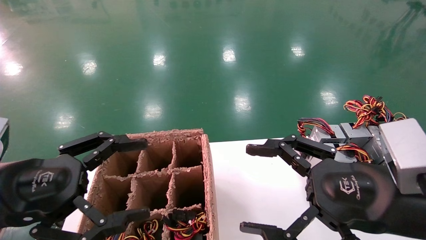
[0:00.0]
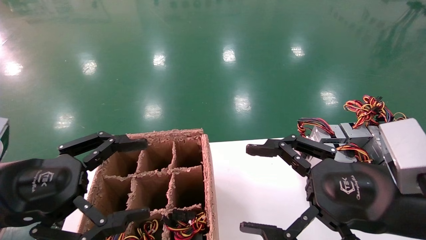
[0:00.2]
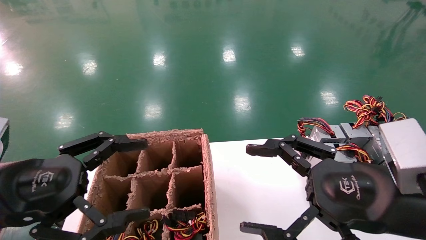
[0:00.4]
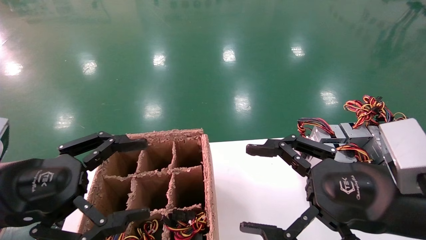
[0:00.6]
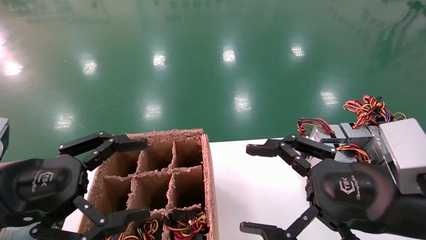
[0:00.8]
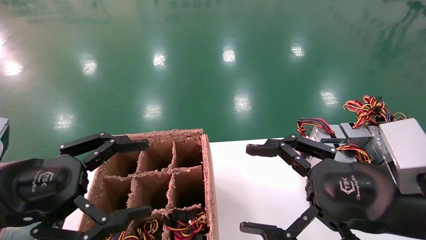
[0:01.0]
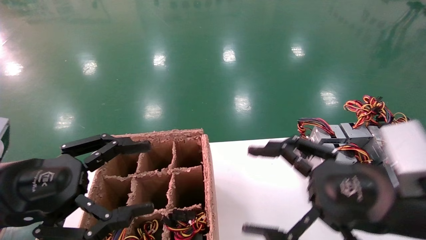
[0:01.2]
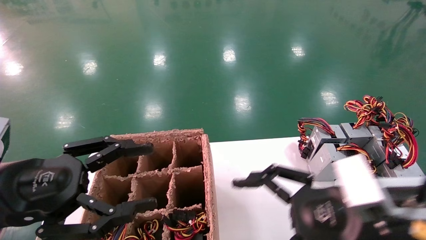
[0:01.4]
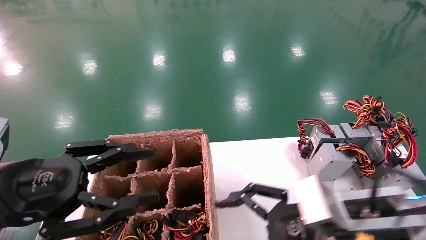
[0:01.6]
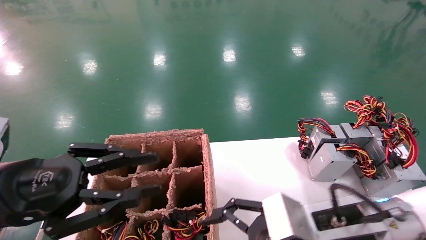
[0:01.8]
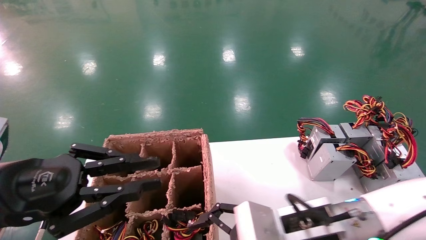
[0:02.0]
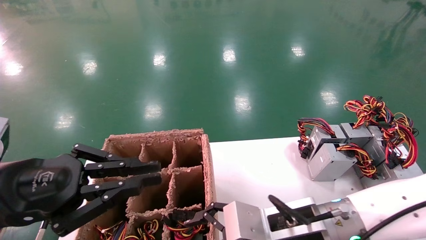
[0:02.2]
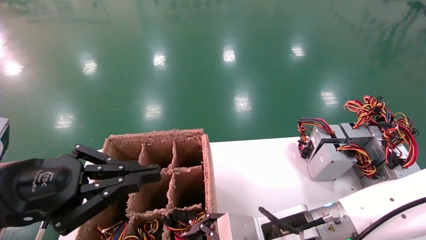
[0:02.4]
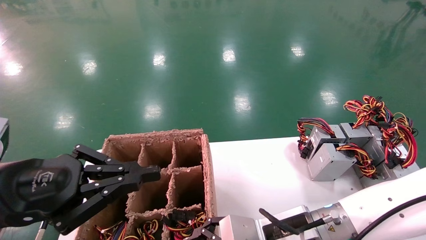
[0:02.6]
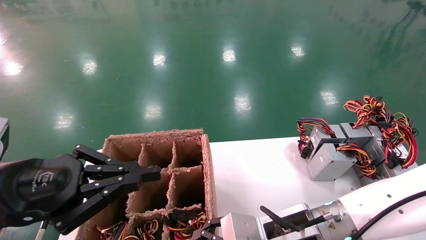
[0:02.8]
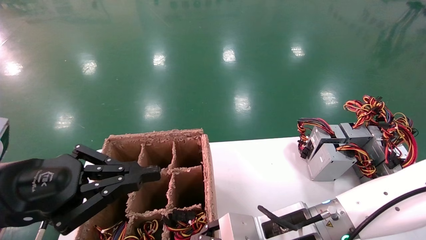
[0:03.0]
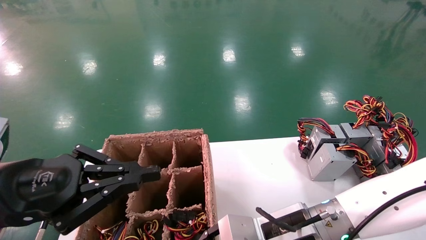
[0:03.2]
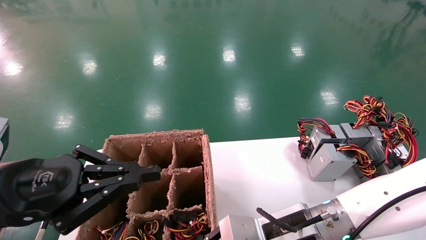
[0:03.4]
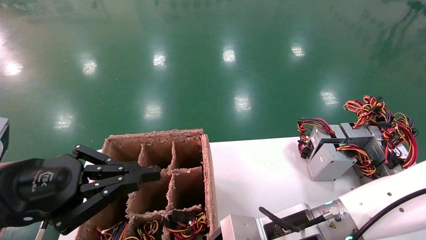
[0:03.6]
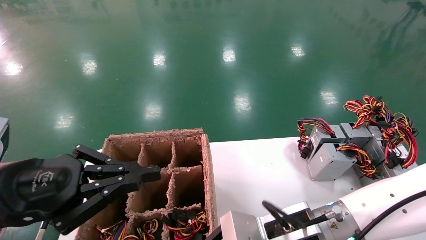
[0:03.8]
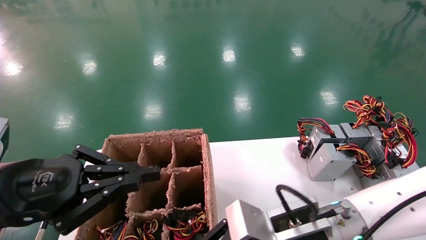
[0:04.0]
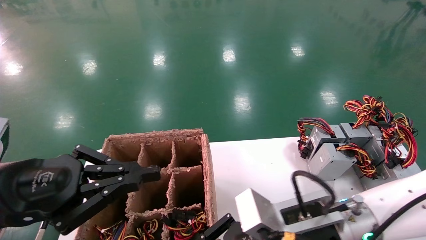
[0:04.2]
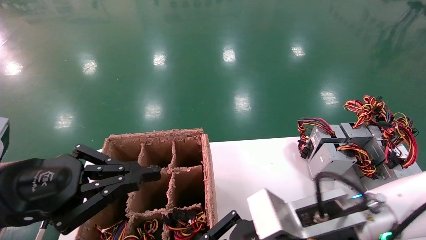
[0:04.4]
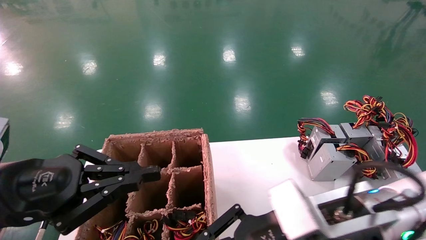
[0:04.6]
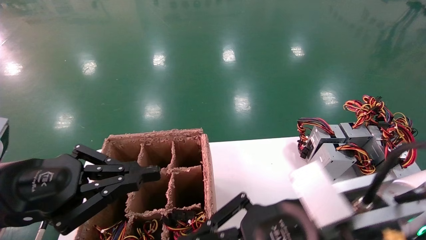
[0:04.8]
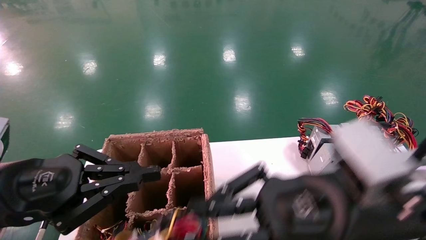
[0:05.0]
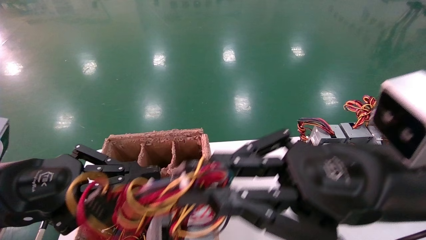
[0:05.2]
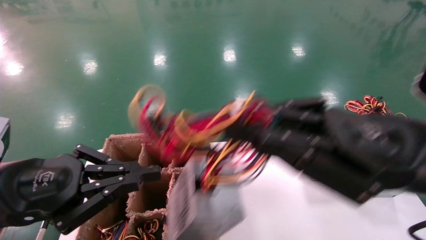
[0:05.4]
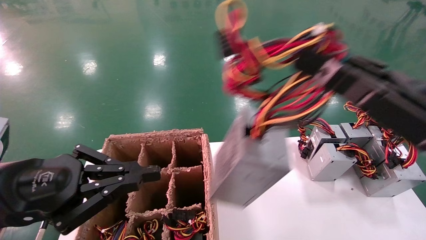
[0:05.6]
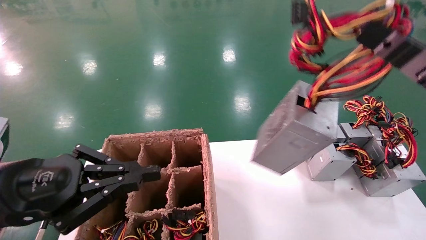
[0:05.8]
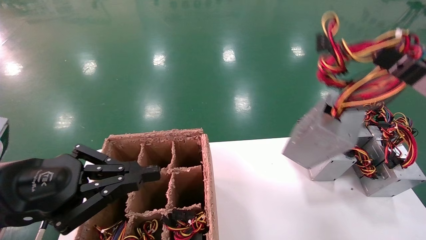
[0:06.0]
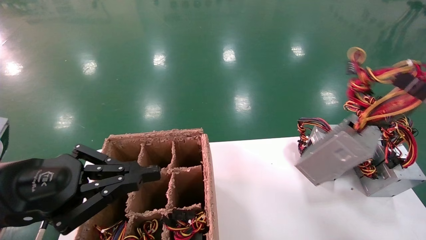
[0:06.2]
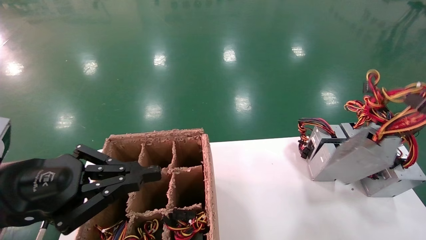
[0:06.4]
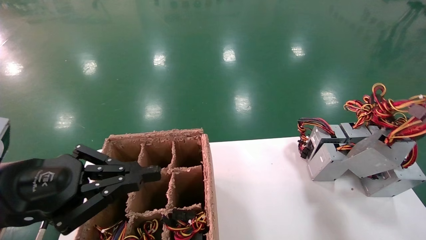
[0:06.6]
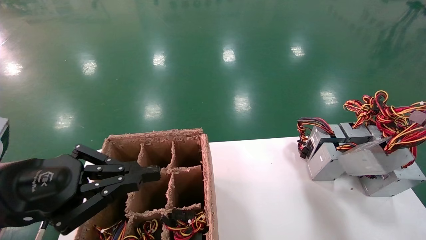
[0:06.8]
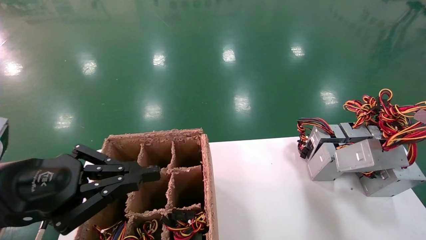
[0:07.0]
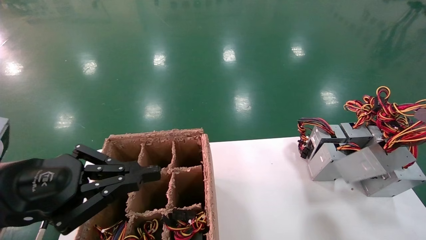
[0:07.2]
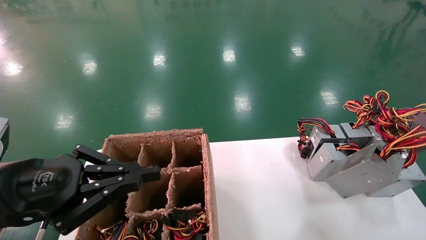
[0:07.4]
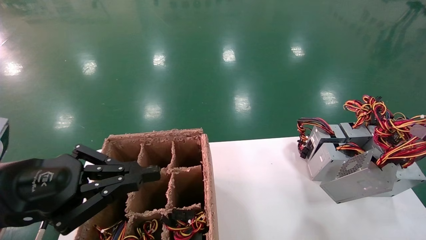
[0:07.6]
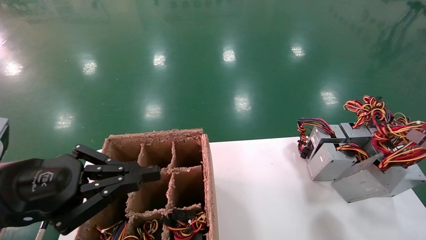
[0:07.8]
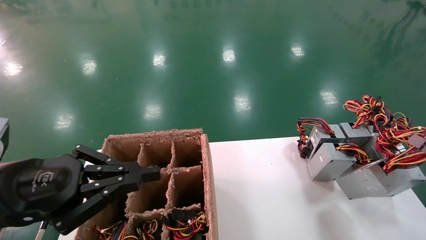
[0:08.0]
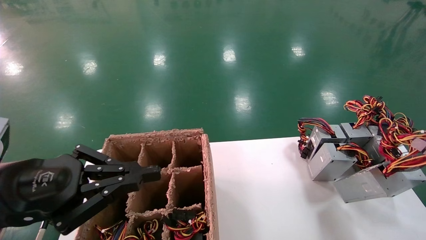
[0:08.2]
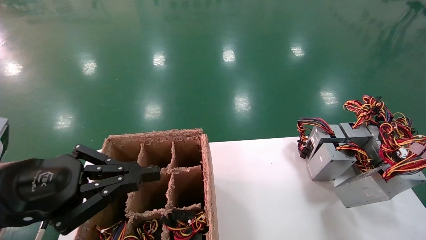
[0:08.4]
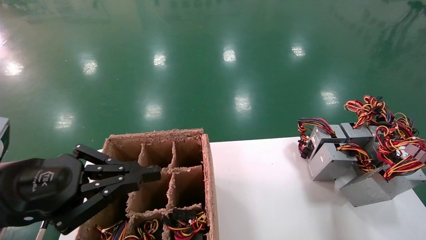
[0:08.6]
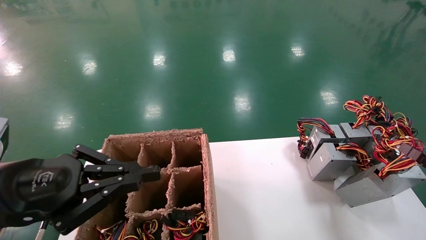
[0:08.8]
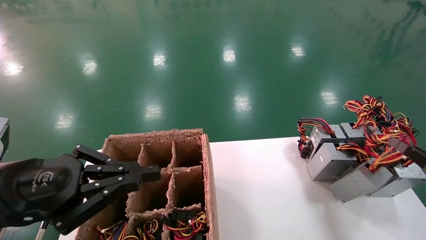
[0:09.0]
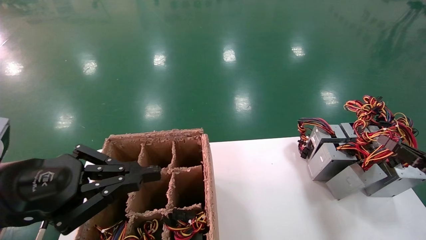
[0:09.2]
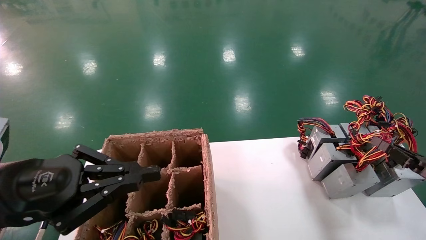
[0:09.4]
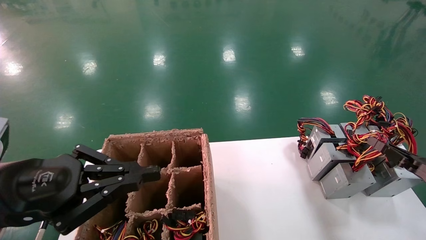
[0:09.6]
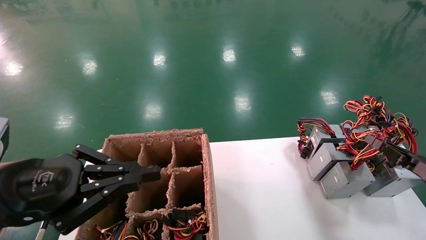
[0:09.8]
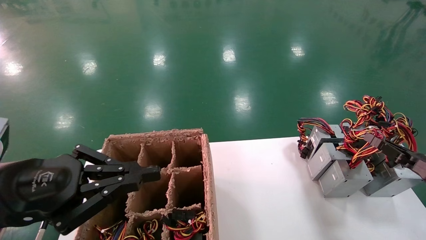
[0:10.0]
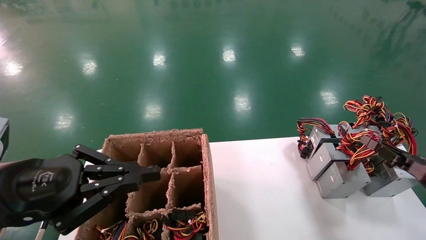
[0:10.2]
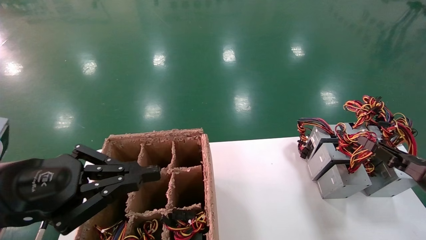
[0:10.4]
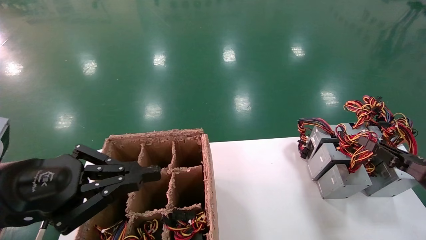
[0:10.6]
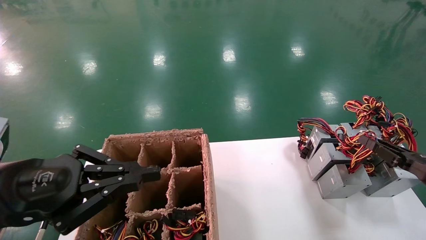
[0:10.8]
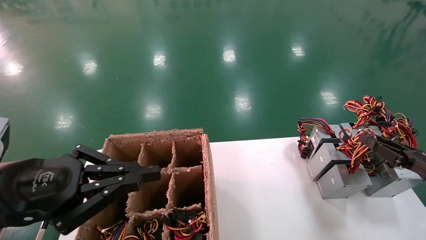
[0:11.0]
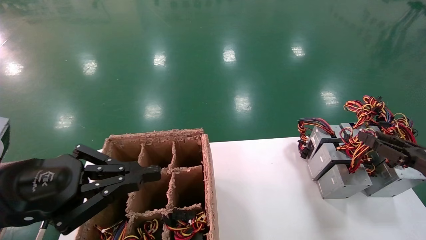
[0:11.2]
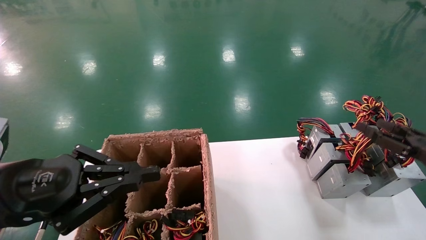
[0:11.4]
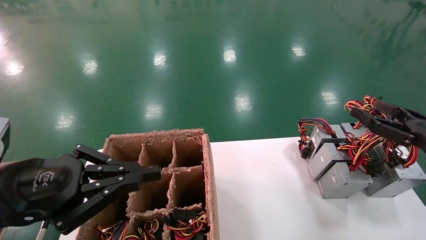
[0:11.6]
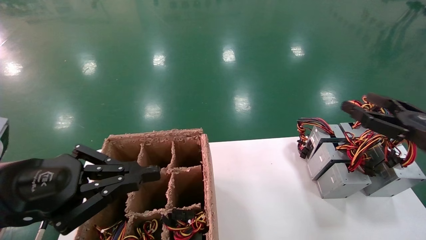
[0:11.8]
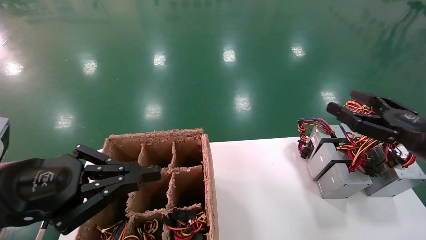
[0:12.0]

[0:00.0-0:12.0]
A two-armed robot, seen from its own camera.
Step, 0:01.6 to 0:03.6: Grab the main unit power supply from the containment box.
Step, 0:03.8 to 0:11.4: Place the main unit power supply in the designated area.
0:00.0 to 0:01.6: The right gripper is displaced downward by some 5 cm, while the left gripper closes up.
0:01.6 to 0:03.0: The right gripper shifts roughly 5 cm to the left; the left gripper closes up.
0:03.0 to 0:04.4: The right gripper ends up some 5 cm from where it was, and closes.
0:04.4 to 0:06.0: The right gripper travels to the right by some 25 cm.
0:06.0 to 0:07.6: The right gripper heads to the right and downward, covering some 15 cm.
0:07.6 to 0:09.0: The right gripper moves forward, about 5 cm.
0:09.0 to 0:10.4: The grippers stay close to where they were, moving slightly.
0:10.4 to 0:12.0: The right gripper moves upward and to the left, about 15 cm, and opens up.

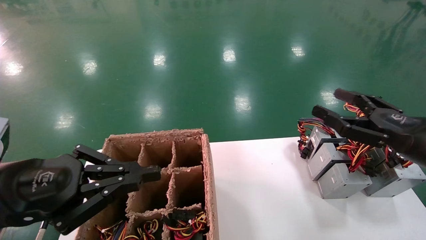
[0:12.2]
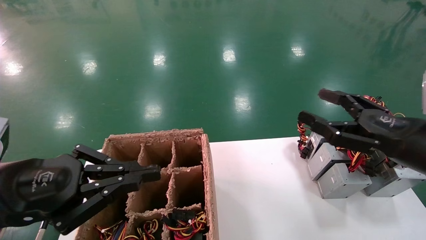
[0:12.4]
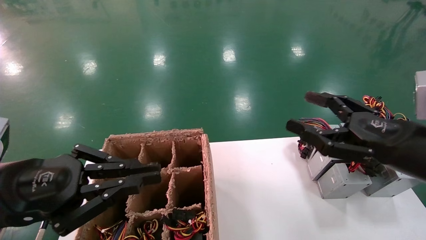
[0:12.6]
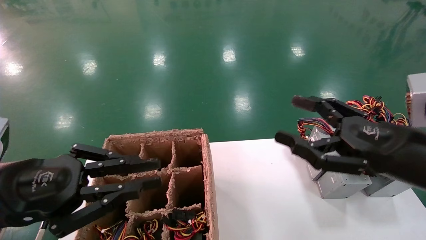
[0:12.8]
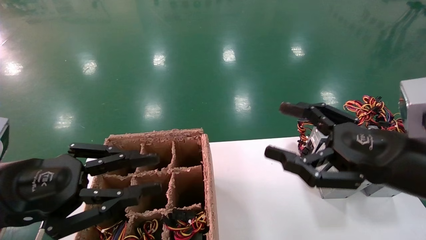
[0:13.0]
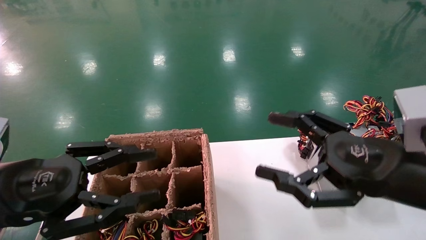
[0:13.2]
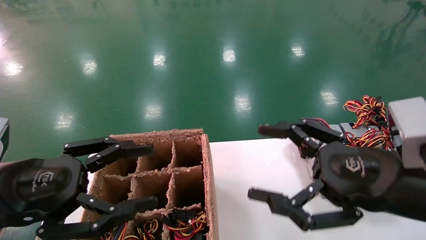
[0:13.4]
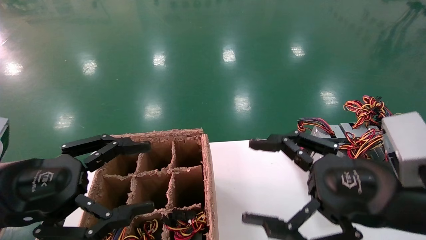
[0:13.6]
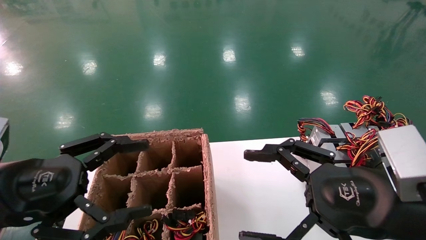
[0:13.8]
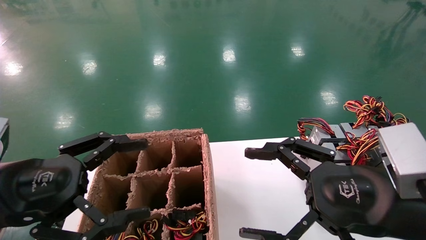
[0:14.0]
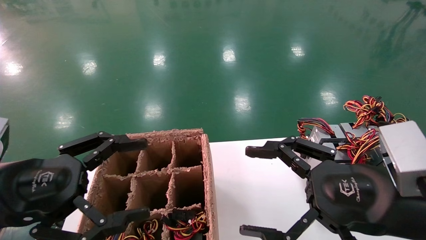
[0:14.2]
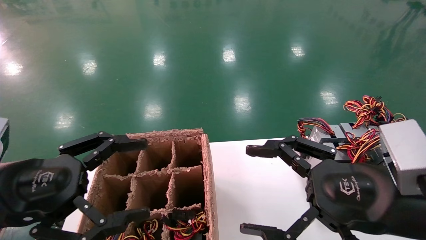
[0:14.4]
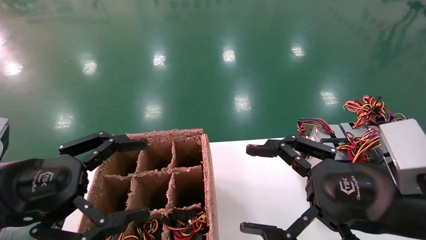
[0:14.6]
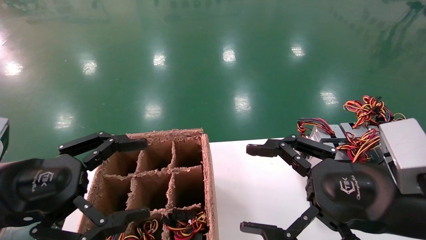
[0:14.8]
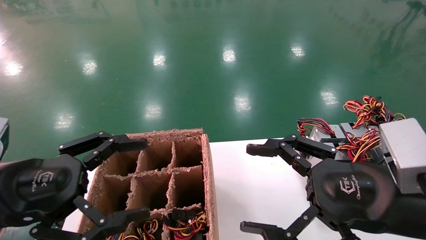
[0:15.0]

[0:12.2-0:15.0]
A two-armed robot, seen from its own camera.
0:12.2 to 0:13.6: The right gripper moves to the left and backward, approximately 15 cm. Meanwhile the left gripper opens.
0:13.6 to 0:15.0: Neither gripper changes place.

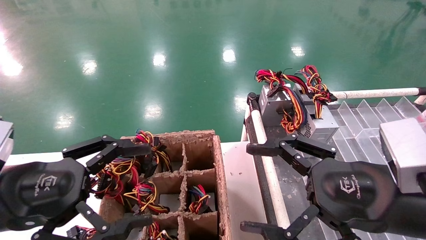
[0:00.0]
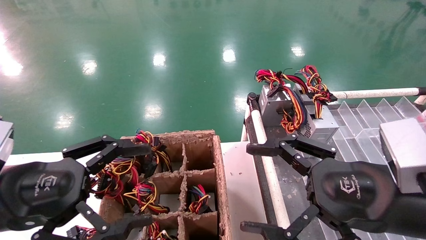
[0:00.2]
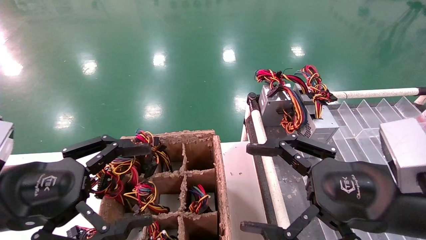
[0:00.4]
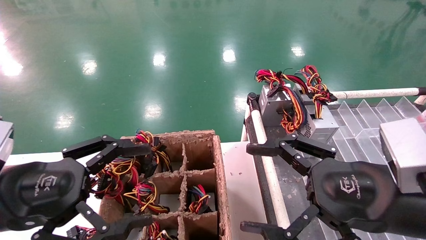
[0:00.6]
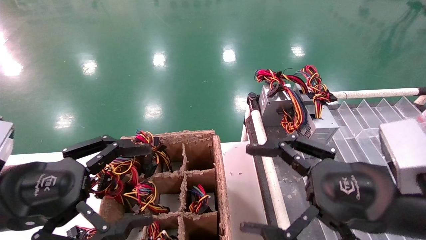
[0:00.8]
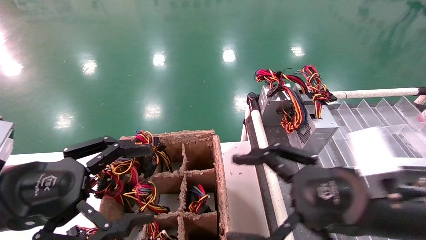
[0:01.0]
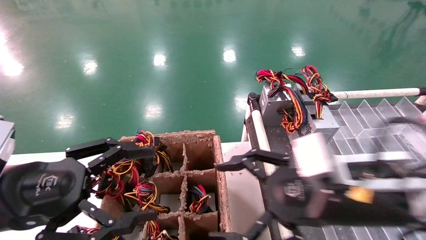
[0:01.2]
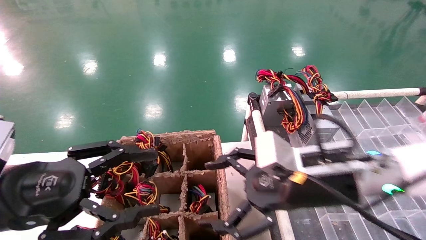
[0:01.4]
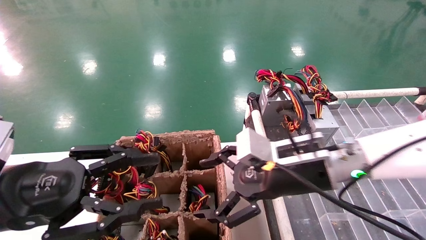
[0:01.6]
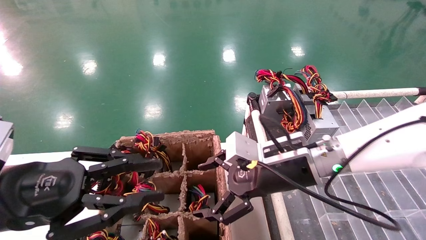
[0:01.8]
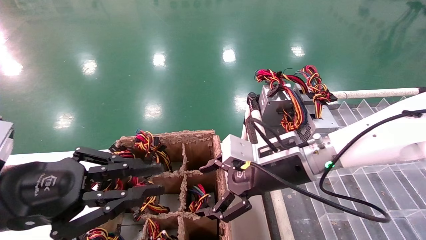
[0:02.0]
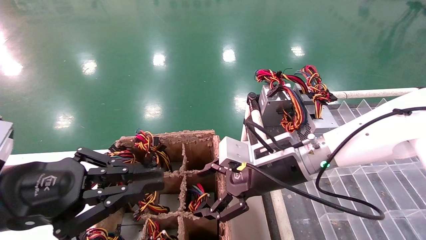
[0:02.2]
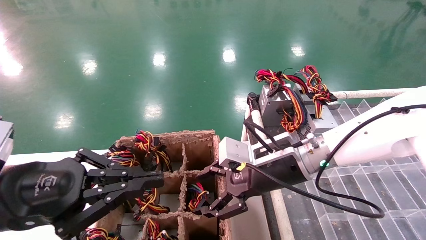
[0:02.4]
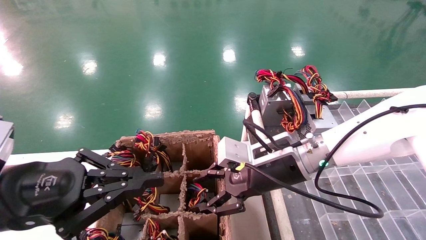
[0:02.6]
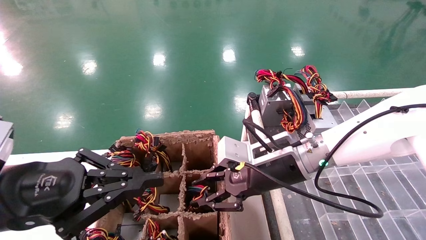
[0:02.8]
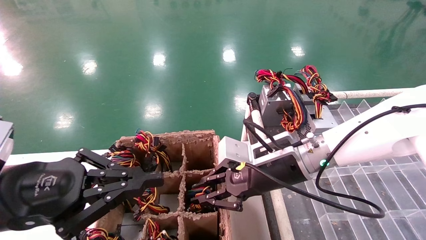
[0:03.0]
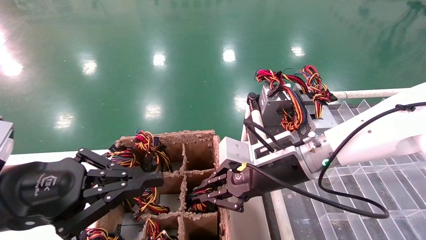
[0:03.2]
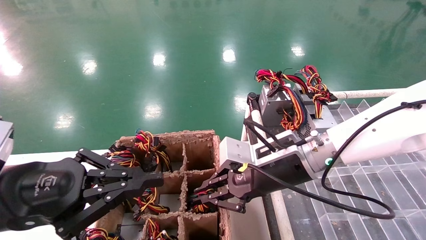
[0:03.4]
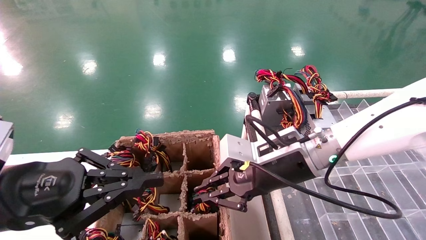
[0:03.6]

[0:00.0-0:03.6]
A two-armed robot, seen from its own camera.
0:00.0 to 0:01.8: The right gripper shifts some 15 cm forward and to the left; the left gripper closes.
0:01.8 to 0:03.6: The left gripper closes its fingers, while the right gripper closes.
